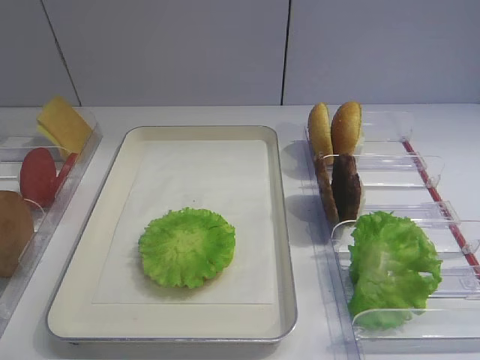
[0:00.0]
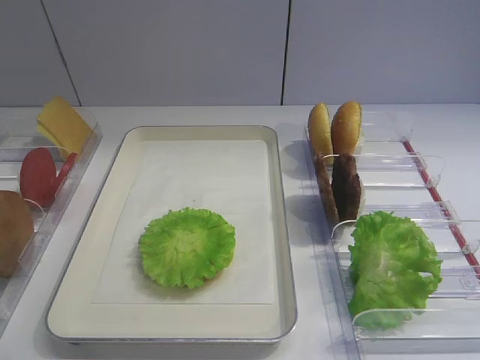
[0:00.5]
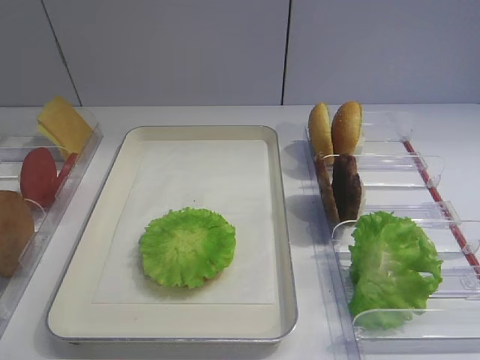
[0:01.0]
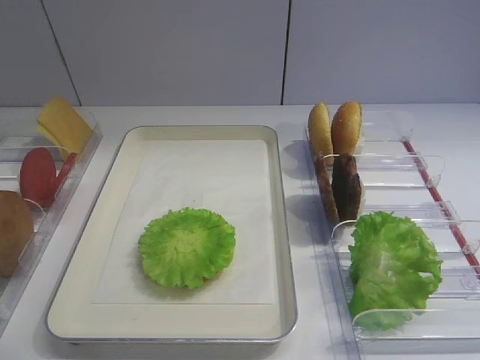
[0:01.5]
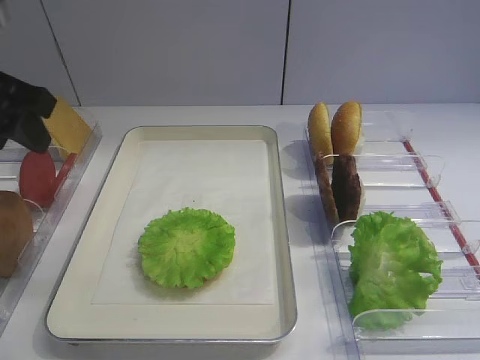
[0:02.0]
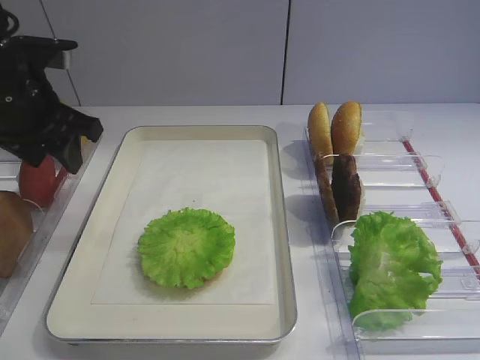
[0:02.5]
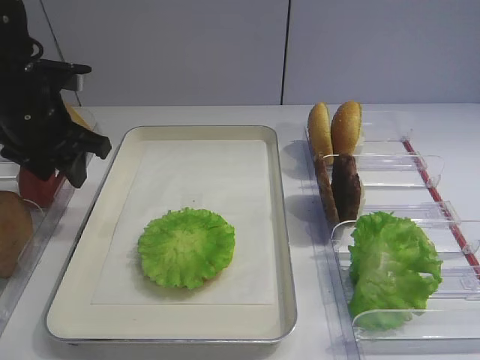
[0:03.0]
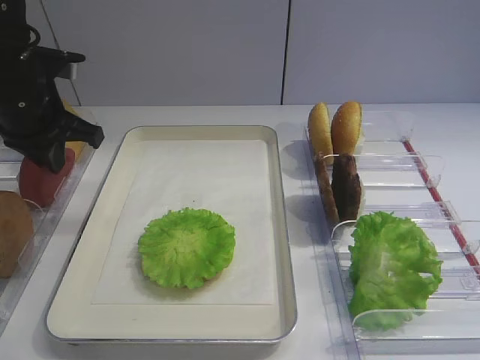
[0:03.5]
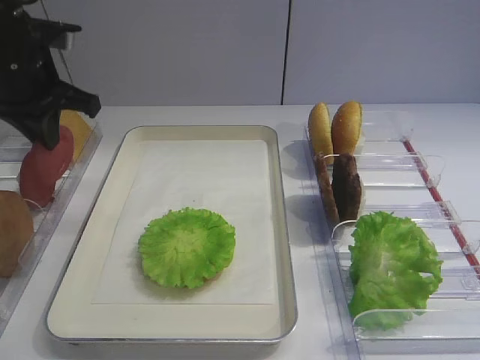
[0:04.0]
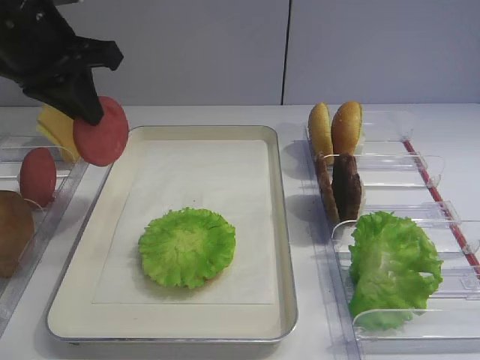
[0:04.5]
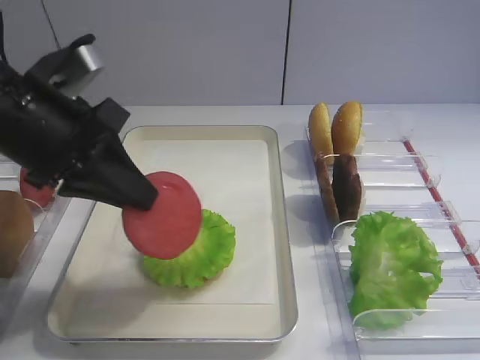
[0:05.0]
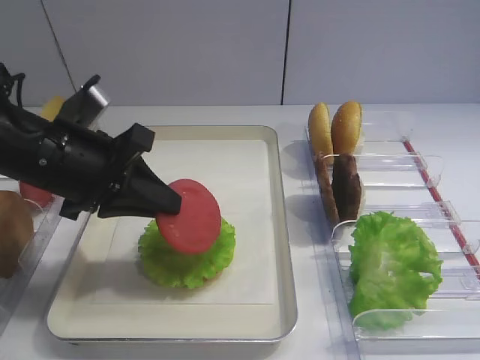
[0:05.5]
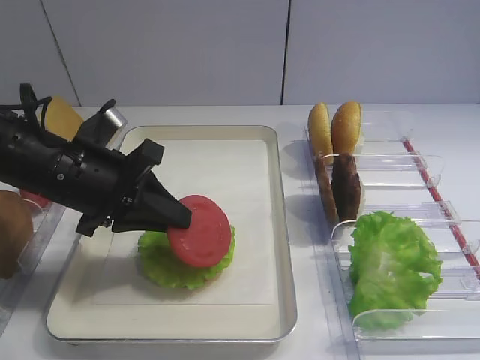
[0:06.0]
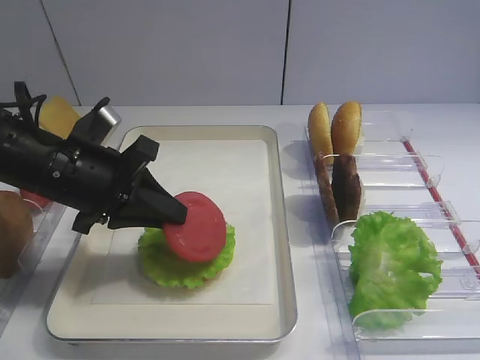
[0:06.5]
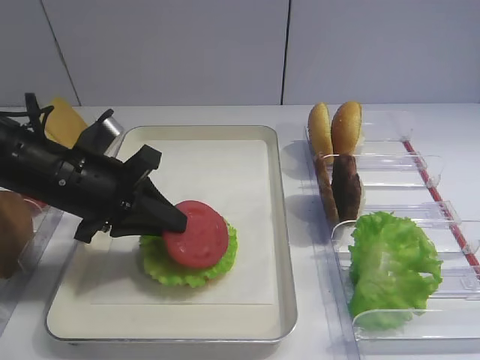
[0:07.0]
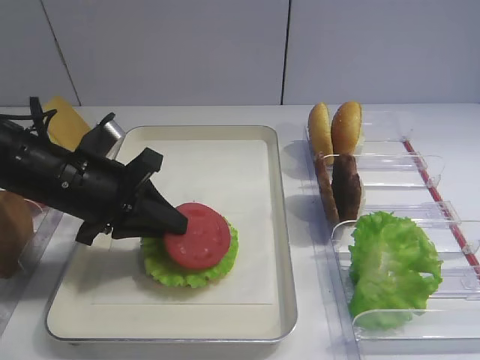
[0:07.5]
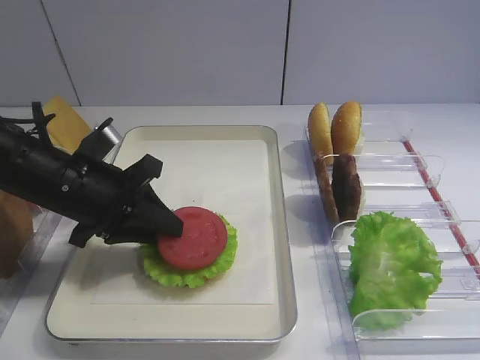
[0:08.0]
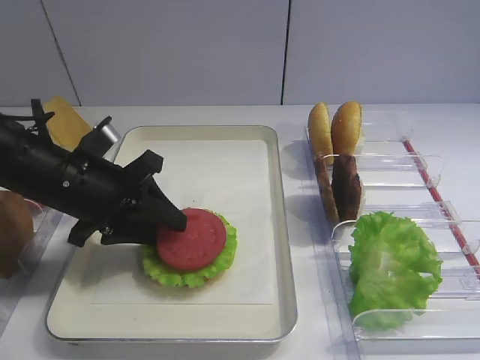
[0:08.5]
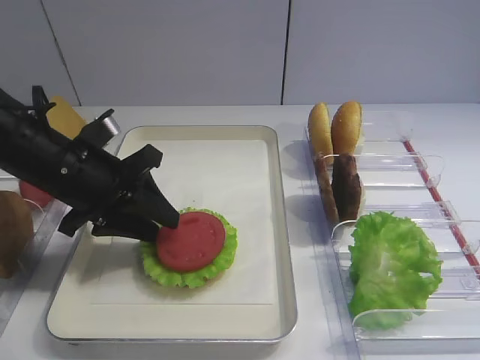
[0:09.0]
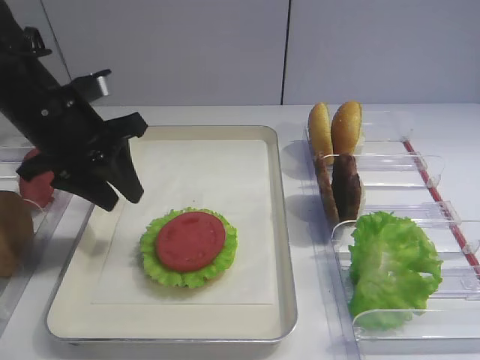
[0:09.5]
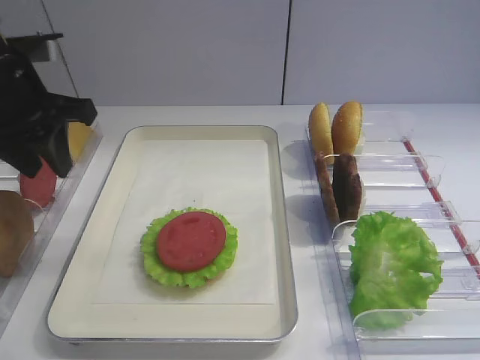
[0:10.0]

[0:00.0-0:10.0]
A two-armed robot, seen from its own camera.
Step, 0:00.0 to 0:04.0: Pick up the tomato slice with the left gripper.
Step, 0:04.5 to 0:09.0: Place the tomato slice on the lettuce leaf with the left gripper.
0:02.0 to 0:04.0: The left gripper shifts roughly 10 cm forward, and closes its fingers.
0:04.0 to 0:06.0: The left gripper goes about 15 cm backward, downward and to the right.
0:06.0 to 0:08.0: The grippers make only small movements.
0:08.0 to 0:10.0: The left gripper travels upward and to the left by approximately 10 cm, and opens its fingers.
